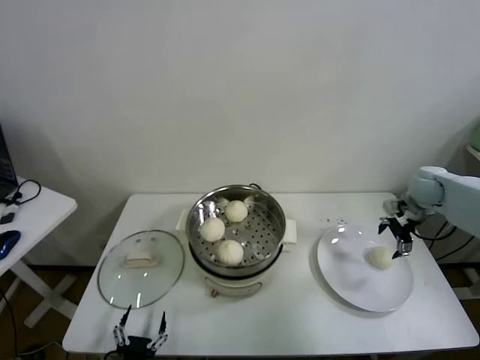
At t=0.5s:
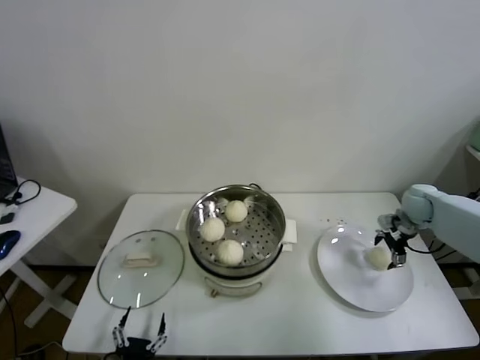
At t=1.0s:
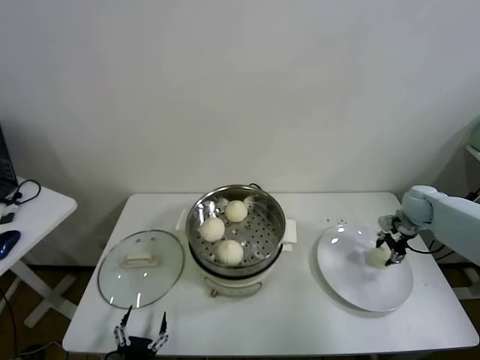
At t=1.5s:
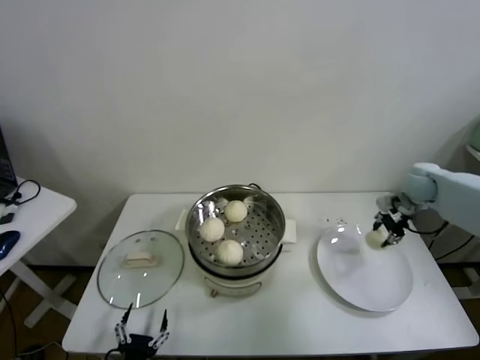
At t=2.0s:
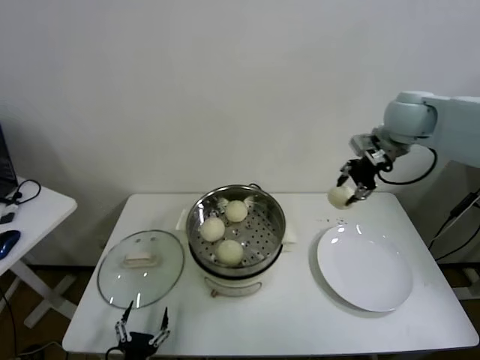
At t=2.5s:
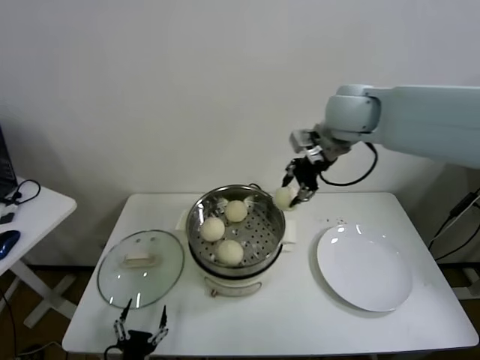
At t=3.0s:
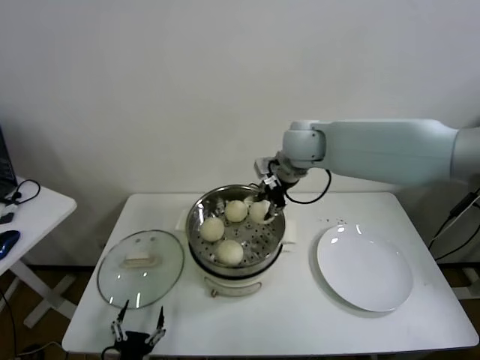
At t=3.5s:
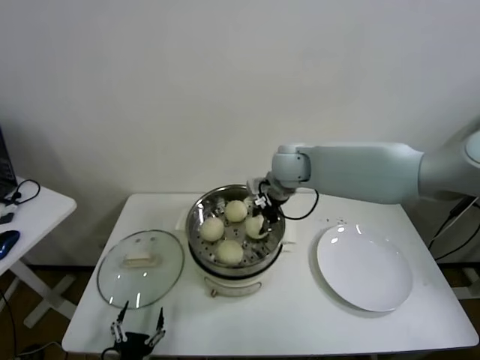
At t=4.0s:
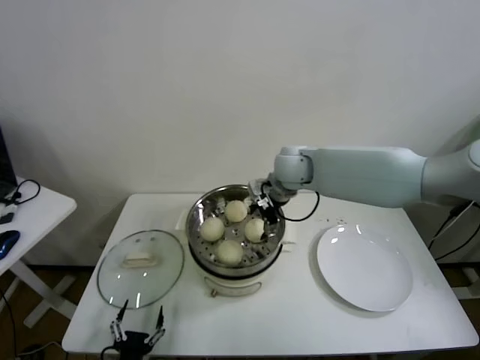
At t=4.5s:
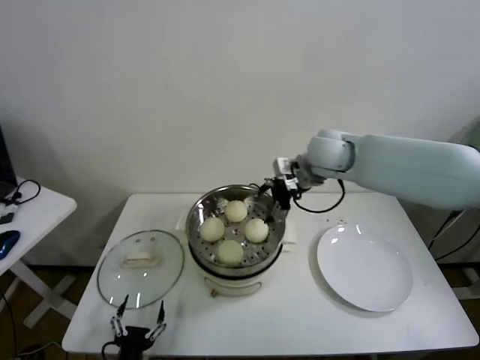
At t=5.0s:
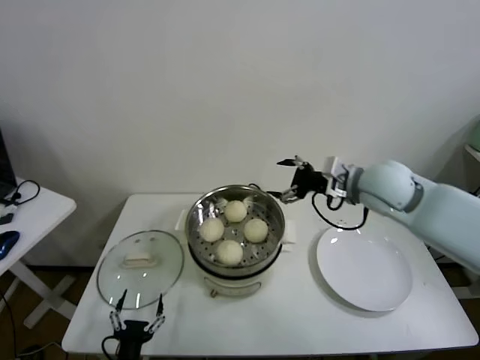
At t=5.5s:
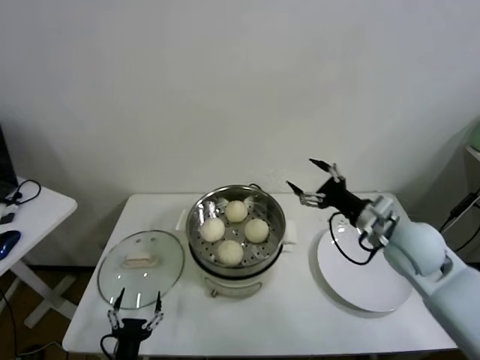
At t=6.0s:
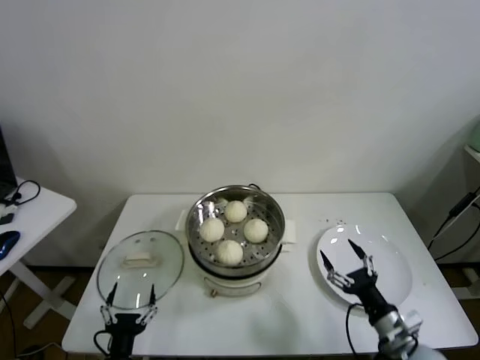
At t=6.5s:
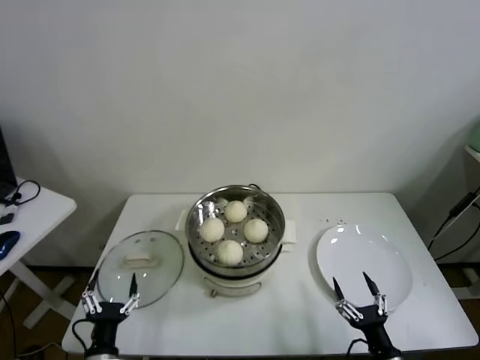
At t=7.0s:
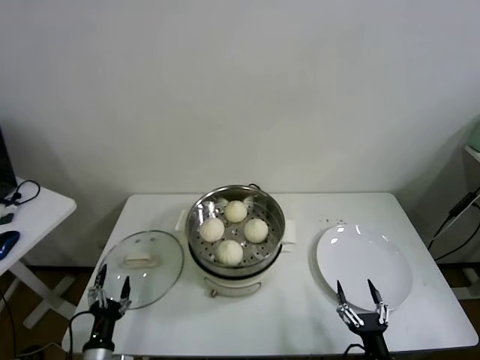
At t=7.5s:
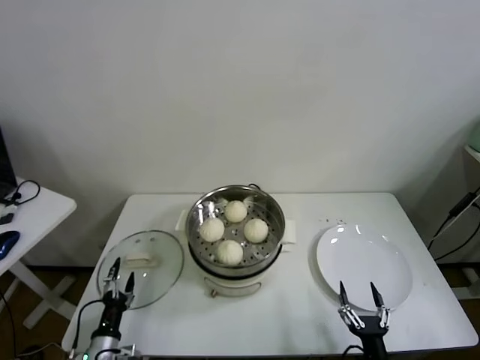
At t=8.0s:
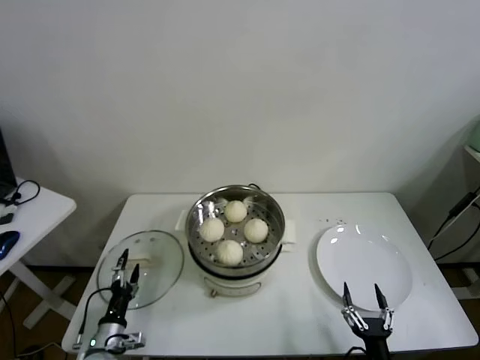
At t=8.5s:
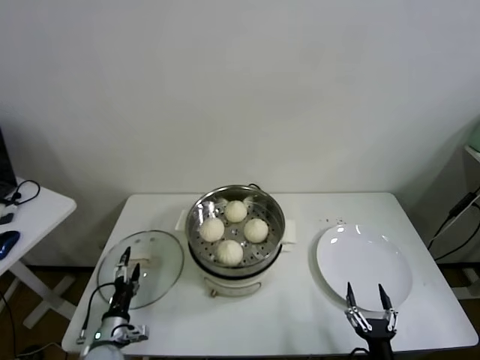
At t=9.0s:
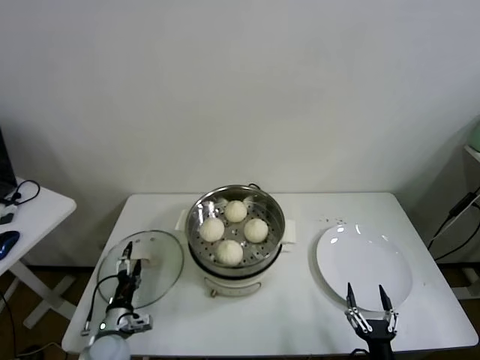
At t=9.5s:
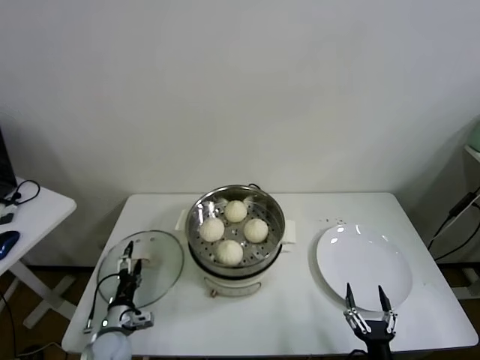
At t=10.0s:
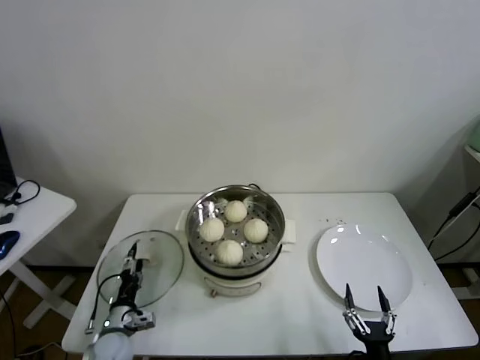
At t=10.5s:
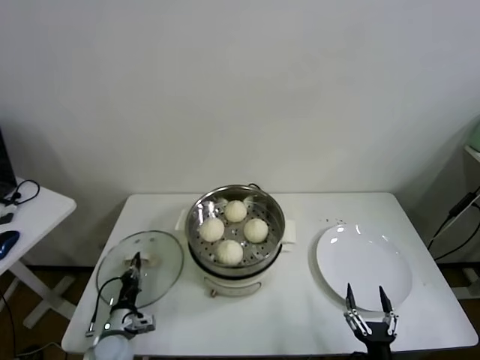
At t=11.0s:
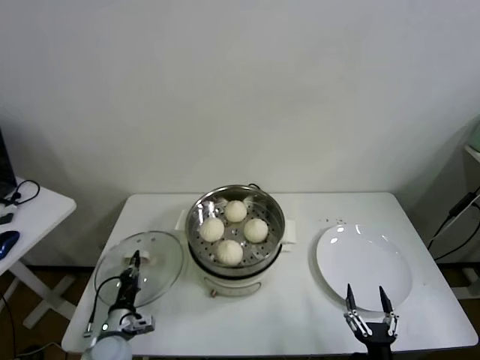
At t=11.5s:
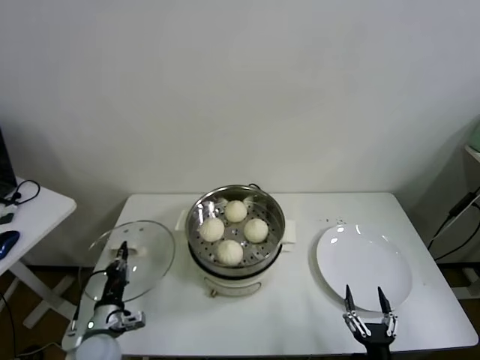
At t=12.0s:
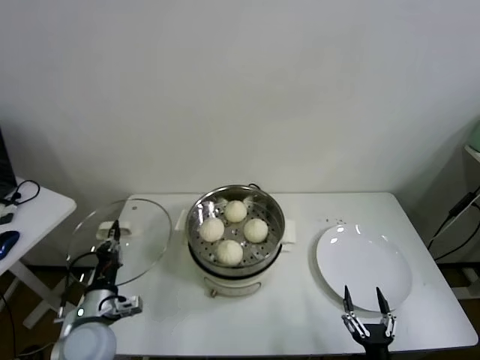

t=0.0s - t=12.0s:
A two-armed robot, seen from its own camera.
Task of the whole recording: take steamed baozi put them in steamer.
Step, t=1.5s - t=4.0s: Place the baozi on the steamer with right gripper.
Step, t=4.5s - t=10.5s: Grasp the pot lid with left gripper.
t=0.0s - t=2.0s: The right gripper heads upward and to the left, covering approximately 25 cm, and closes its fingers.
t=2.0s - t=4.0s: The right gripper shifts some 25 cm to the left and downward, and opens its fingers.
t=4.0s - t=6.0s: The right gripper moves backward, downward and to the right, some 50 cm.
t=6.0s - t=8.0s: The right gripper shifts about 15 cm downward and backward. The left gripper shifts about 15 cm forward, to the left and downward.
t=8.0s - t=10.0s: The grippers move only a little.
t=10.0s - t=12.0s: The left gripper is displaced upward by approximately 15 cm, and closes its fingers.

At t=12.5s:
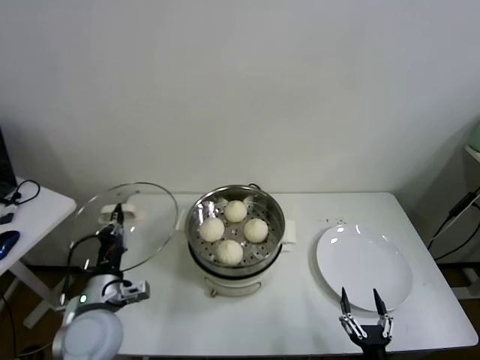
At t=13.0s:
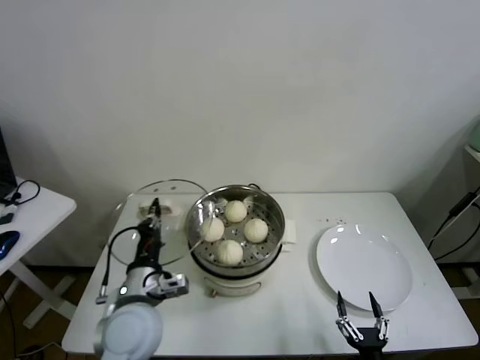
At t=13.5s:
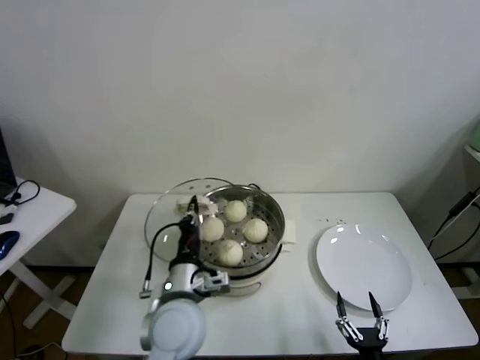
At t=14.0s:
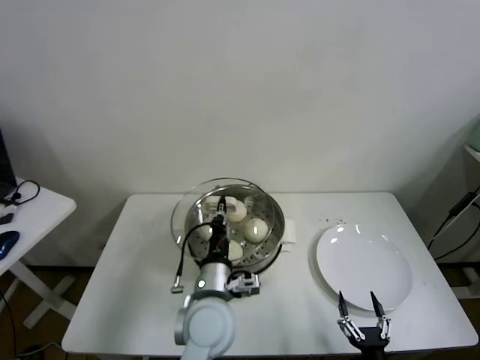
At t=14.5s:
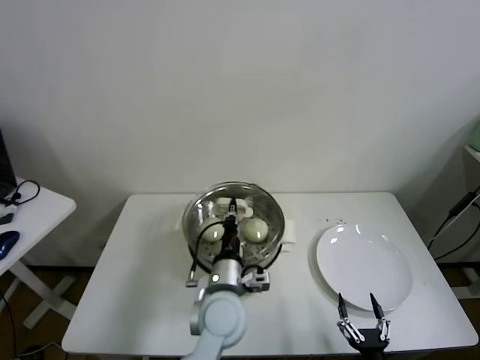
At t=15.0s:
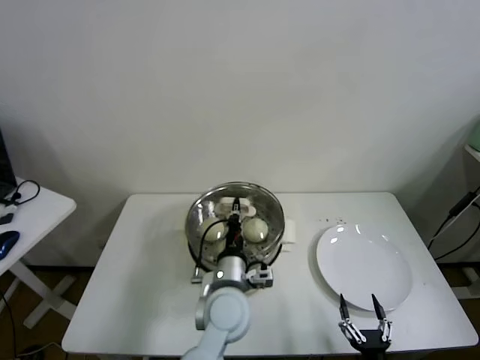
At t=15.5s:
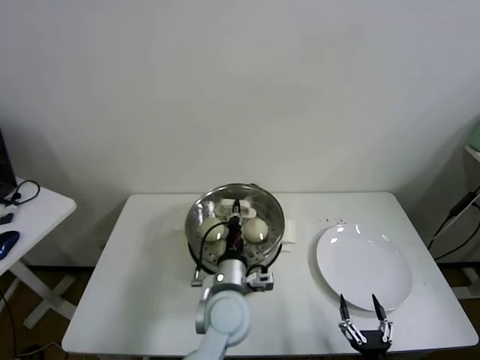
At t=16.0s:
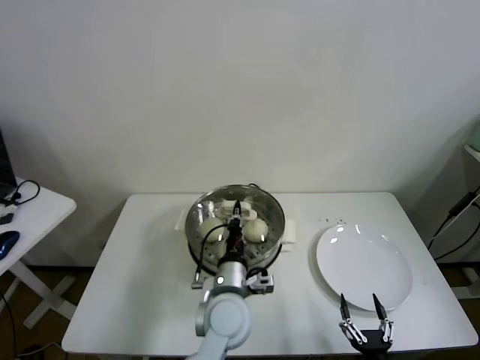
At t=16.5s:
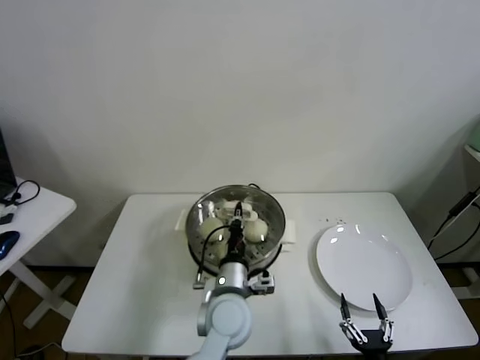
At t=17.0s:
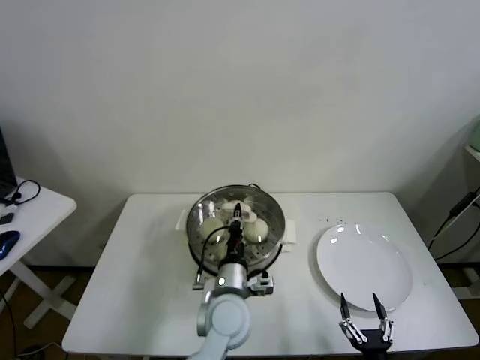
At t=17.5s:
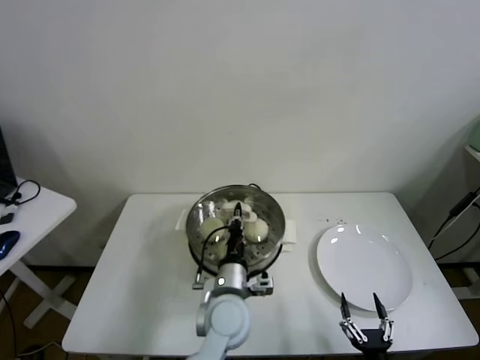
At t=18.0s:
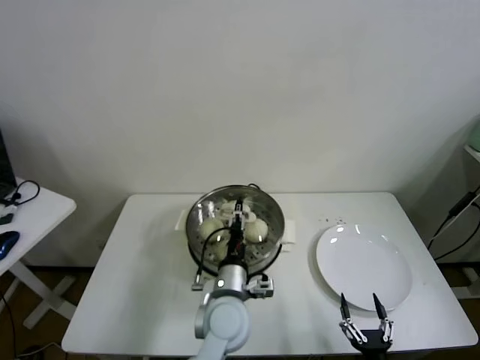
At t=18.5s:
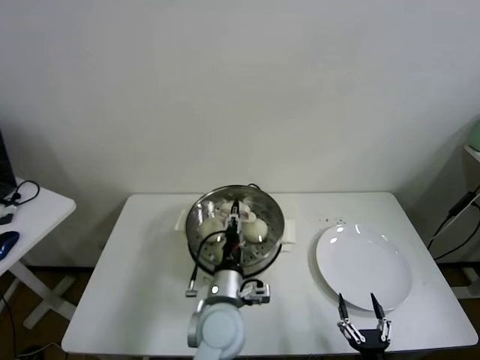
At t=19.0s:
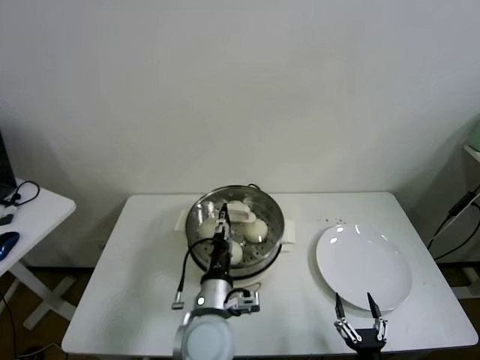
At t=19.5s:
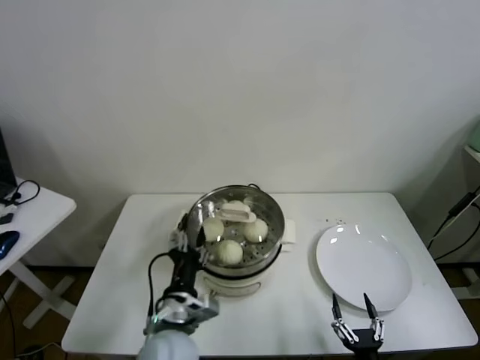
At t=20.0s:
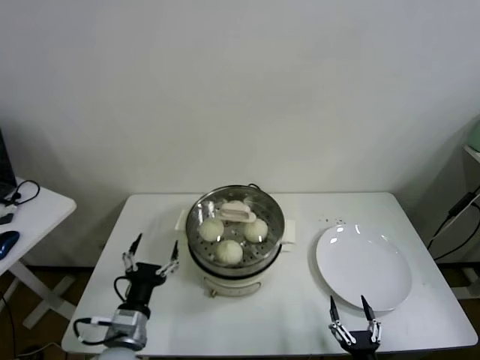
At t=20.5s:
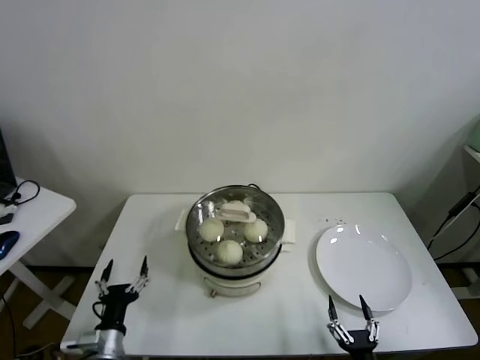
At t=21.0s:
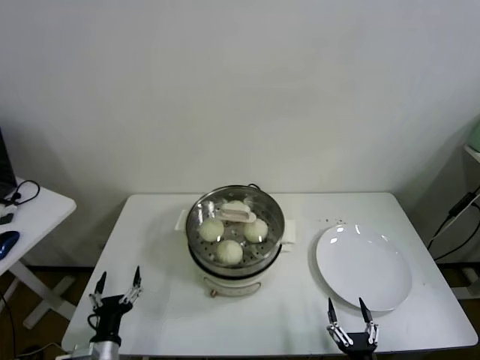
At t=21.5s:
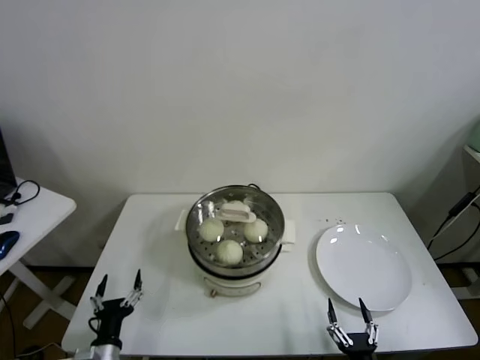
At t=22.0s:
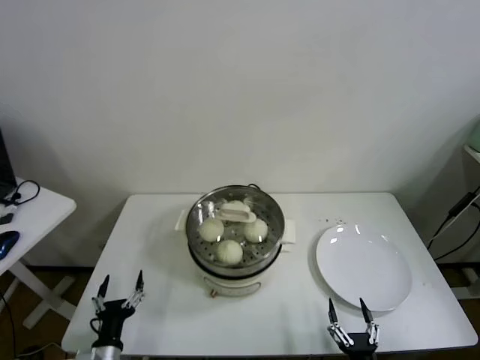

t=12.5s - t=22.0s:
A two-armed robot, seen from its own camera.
Task of the whole recording: take steamed baozi put them in steamer.
Step, t=12.5s - t=18.5s: Place the pot lid on the steamer with left gripper.
t=12.5s - t=14.5s: The left gripper is displaced to the right by some 25 cm.
t=14.5s - t=16.5s: The grippers move only a little.
t=16.5s - t=18.0s: The left gripper opens its fingers.
t=18.0s - t=20.0s: The left gripper is displaced to the left and backward by about 20 cm, and opens.
t=20.0s - t=22.0s: The left gripper shifts approximately 15 cm downward and to the left.
